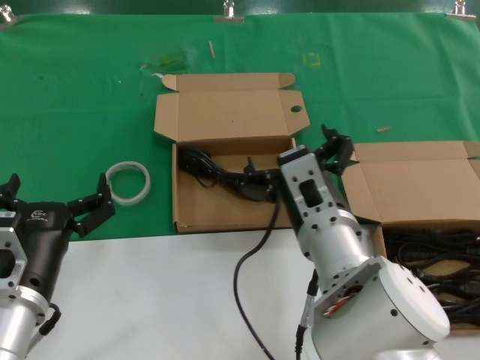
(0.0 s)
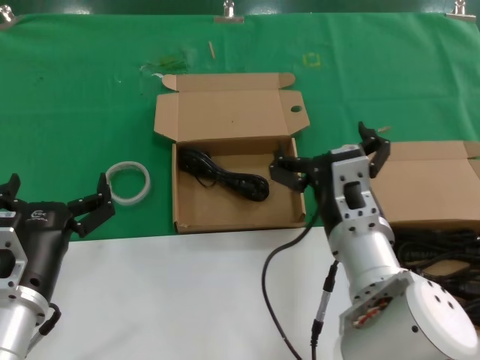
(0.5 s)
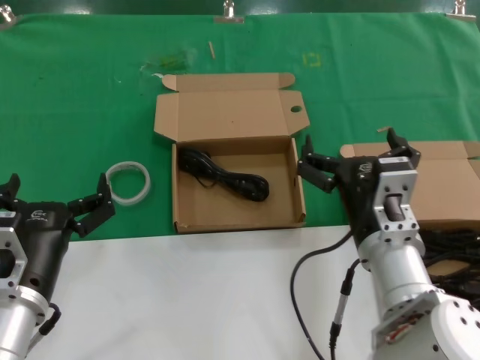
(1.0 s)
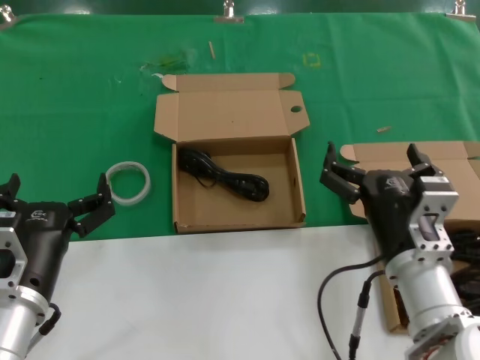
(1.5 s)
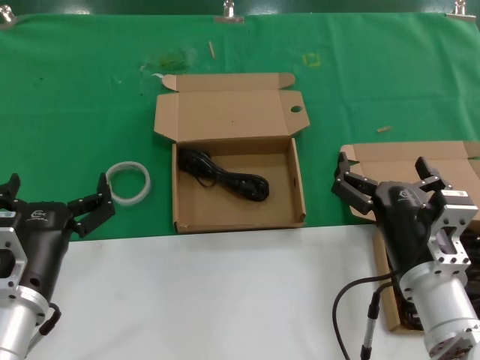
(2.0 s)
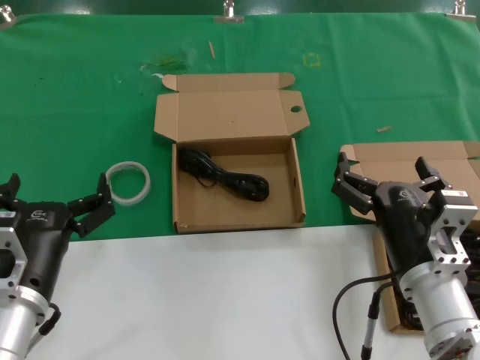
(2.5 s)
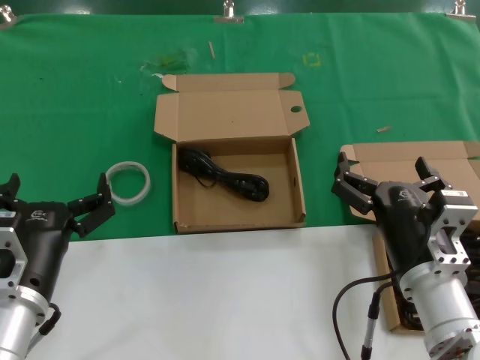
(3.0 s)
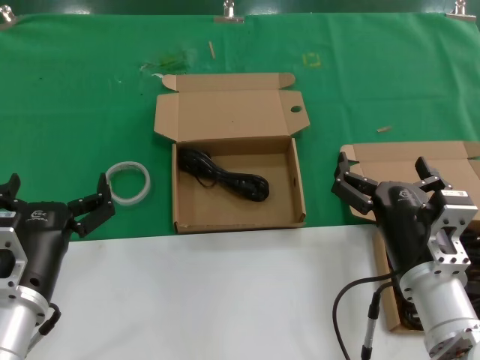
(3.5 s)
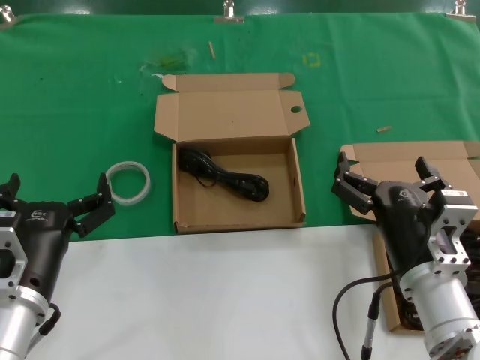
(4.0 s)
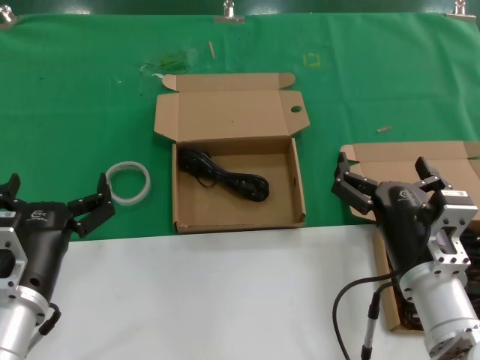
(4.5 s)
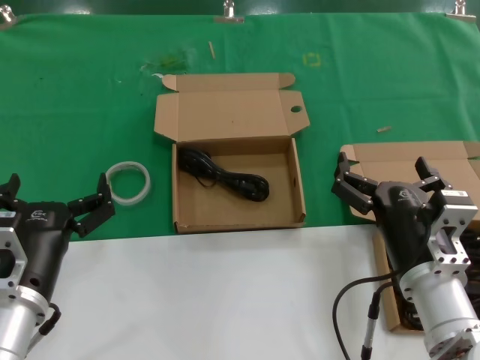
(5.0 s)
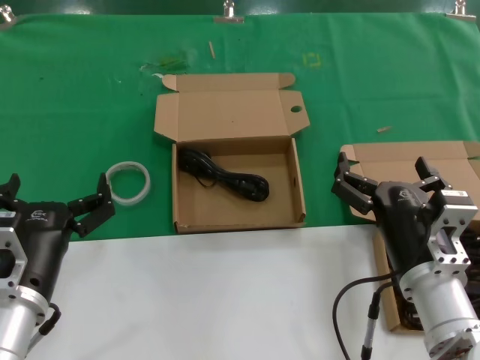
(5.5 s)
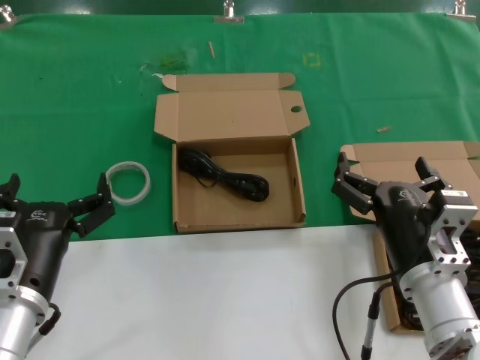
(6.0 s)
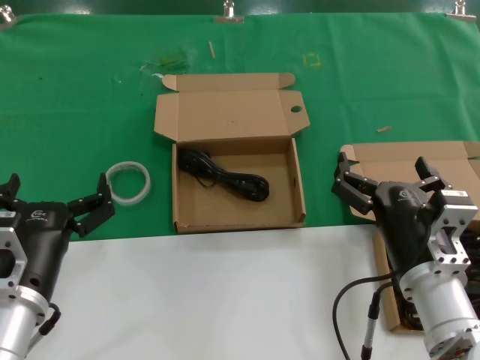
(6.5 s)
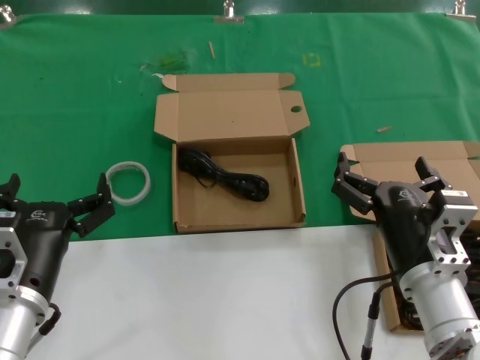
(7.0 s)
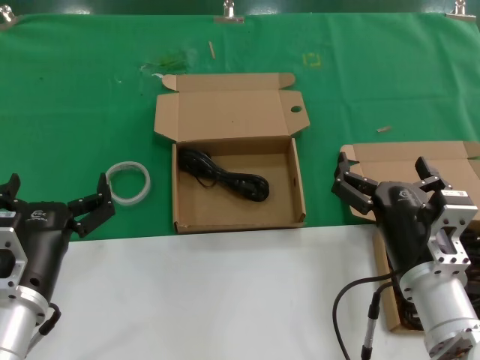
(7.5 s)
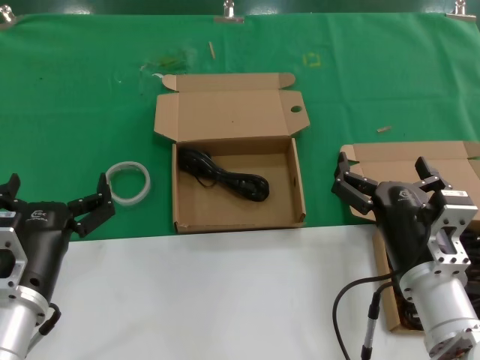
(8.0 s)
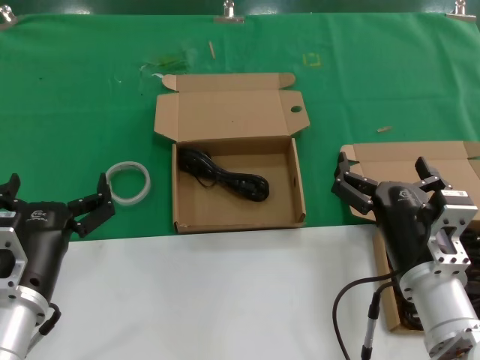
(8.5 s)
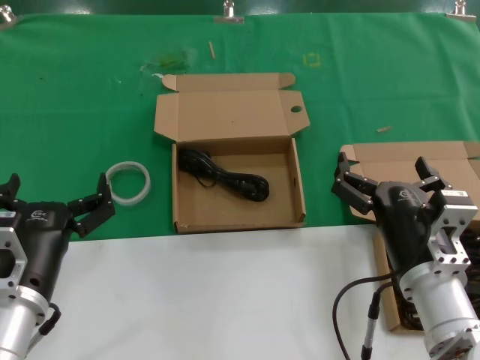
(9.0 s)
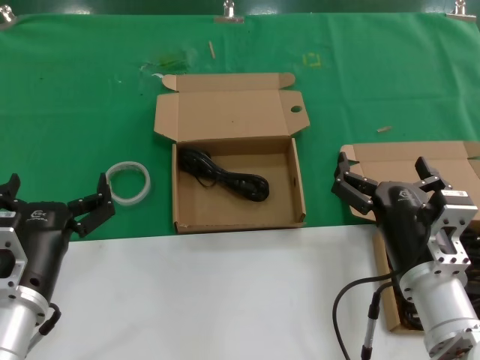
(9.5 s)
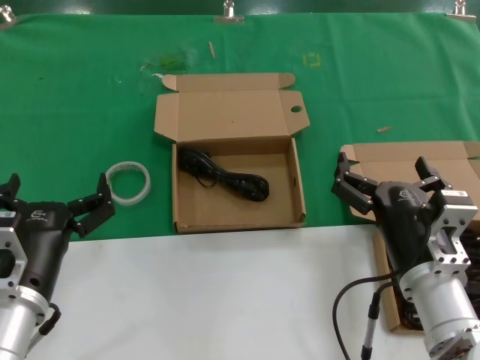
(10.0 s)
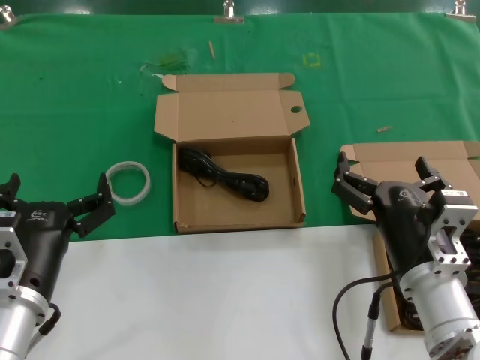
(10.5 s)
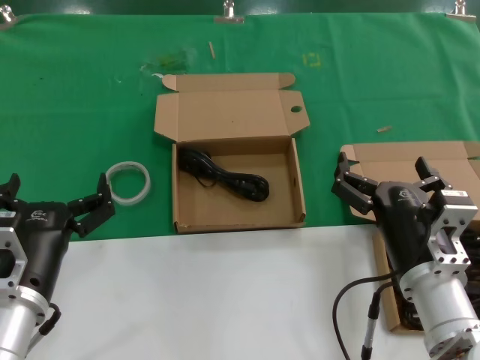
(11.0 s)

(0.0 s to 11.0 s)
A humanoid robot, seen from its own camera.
Task of the whole recording: take the parts from the box containing them and put them into an empty box.
0.0 s - 2.0 s: The right hand goes about 15 cm to the right and downward.
2.0 s - 11.0 s: Both hands stay put.
